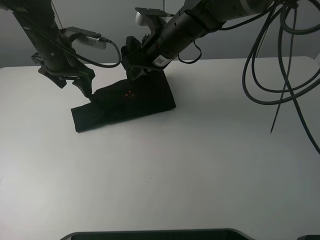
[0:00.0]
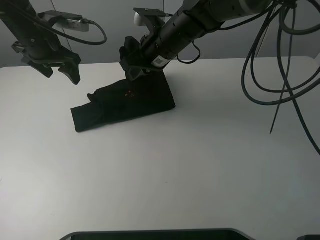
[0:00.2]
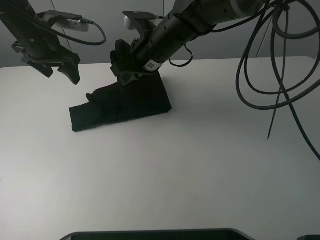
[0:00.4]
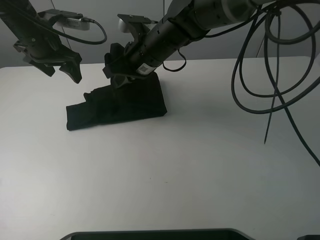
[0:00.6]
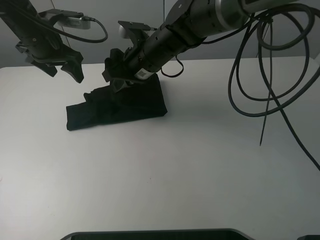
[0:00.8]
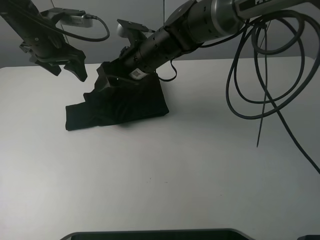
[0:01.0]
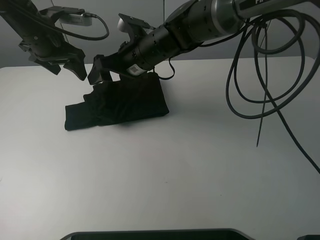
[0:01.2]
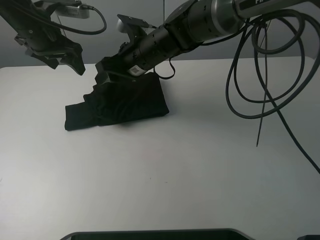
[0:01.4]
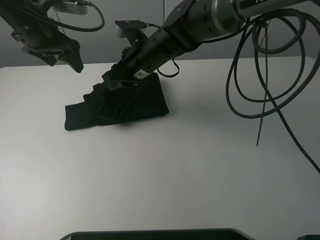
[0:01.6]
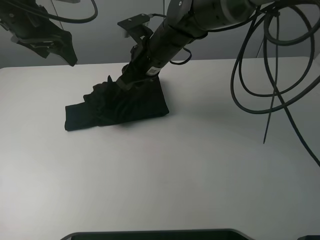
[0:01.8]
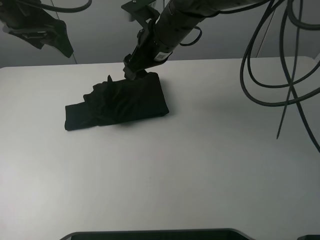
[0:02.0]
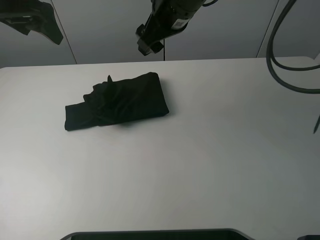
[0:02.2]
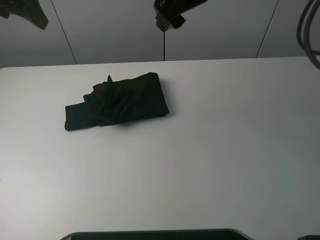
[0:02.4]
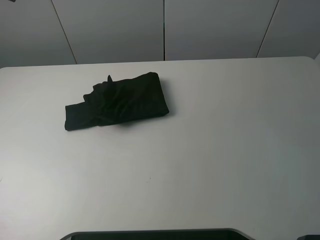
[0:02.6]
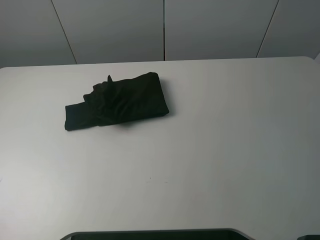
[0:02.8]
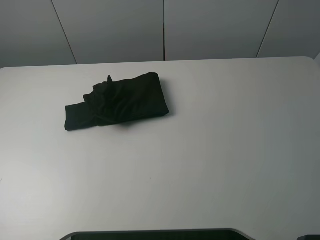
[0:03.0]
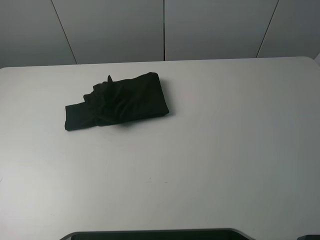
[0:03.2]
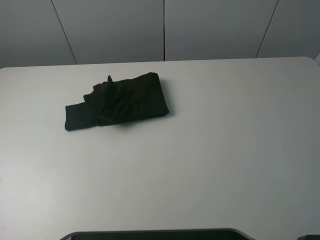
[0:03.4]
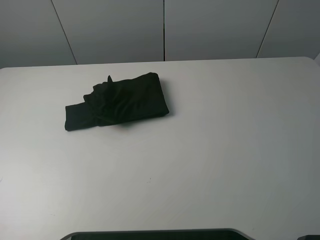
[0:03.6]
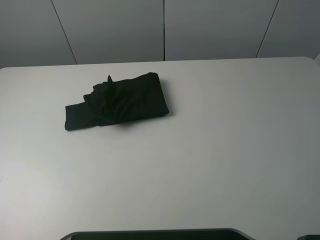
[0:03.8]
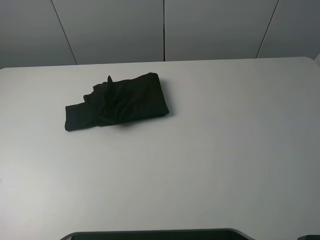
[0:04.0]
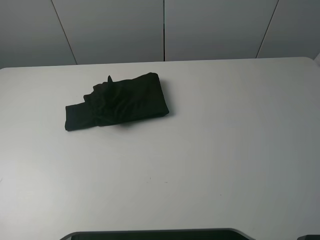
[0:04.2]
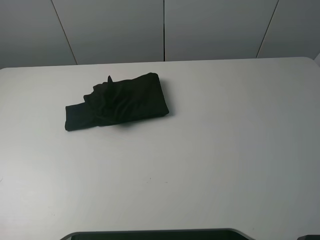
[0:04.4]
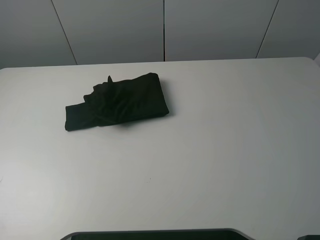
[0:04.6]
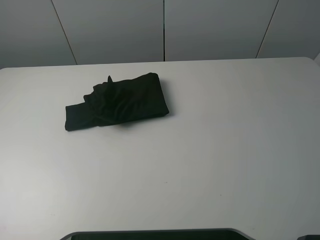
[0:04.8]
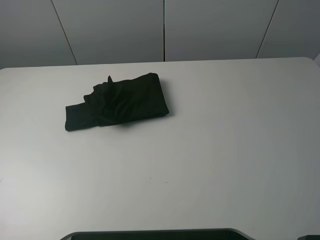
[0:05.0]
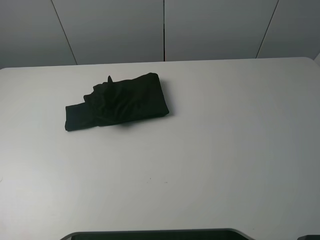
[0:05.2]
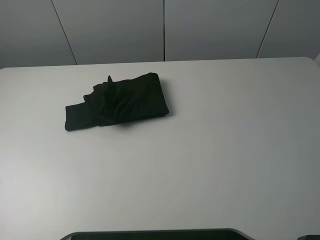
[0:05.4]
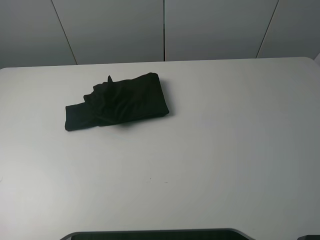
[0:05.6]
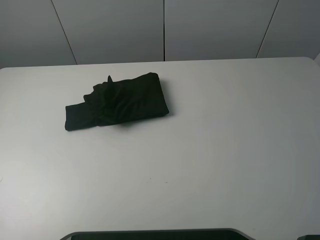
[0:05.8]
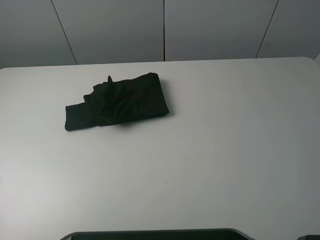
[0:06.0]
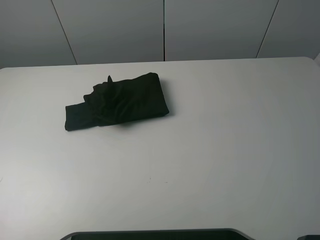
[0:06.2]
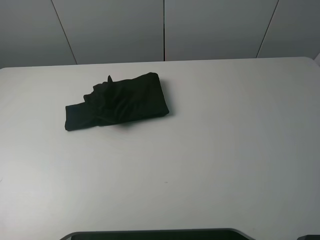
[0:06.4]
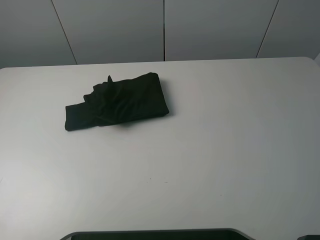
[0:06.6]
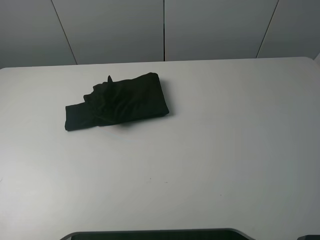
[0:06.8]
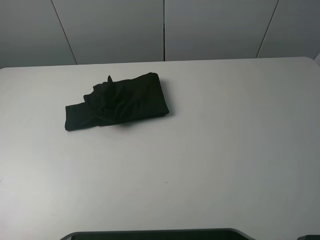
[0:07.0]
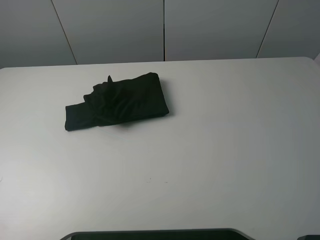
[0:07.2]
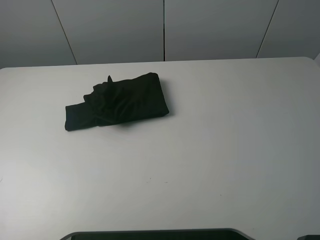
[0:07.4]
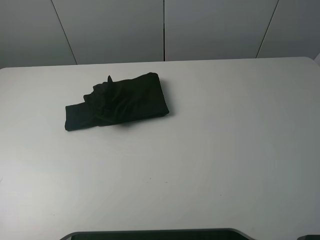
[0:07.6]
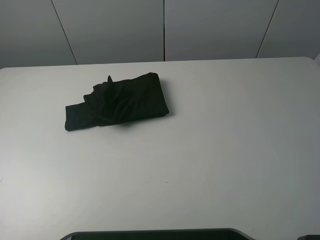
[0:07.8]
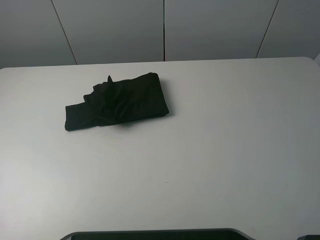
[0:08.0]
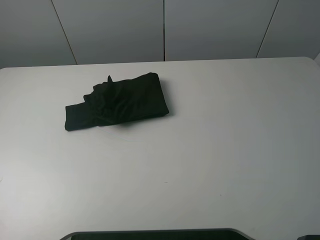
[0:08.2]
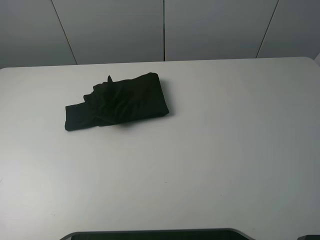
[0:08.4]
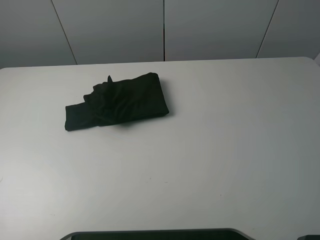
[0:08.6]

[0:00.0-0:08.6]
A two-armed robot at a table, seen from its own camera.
Task of the whole recording: fold the clothes on the table.
0:00.0 to 0:01.4: The right gripper opens up.
0:01.4 to 0:02.8: The right gripper heads upward and to the right, covering about 30 cm; the left gripper heads upward and backward, covering some 25 cm.
